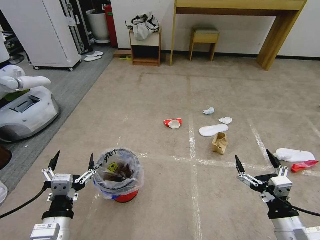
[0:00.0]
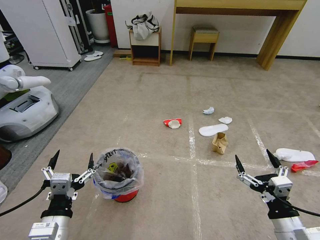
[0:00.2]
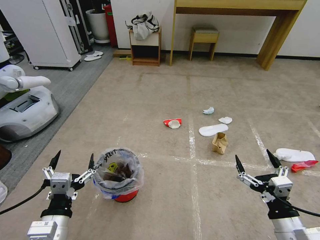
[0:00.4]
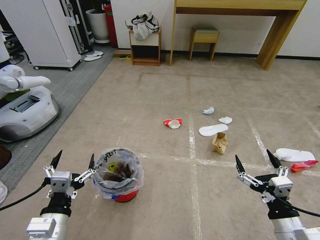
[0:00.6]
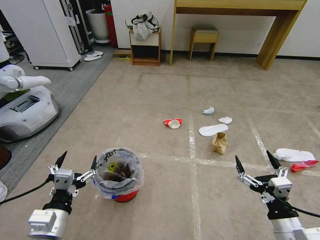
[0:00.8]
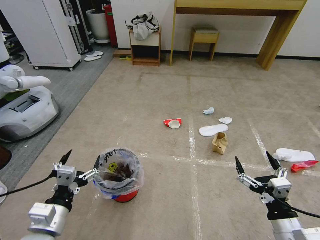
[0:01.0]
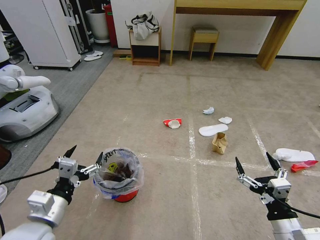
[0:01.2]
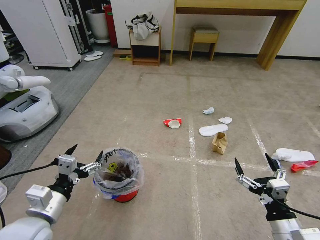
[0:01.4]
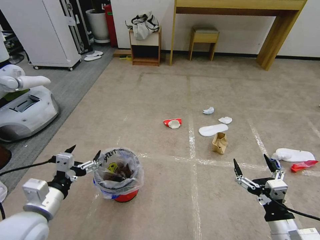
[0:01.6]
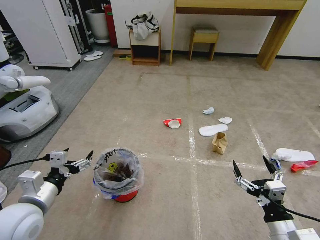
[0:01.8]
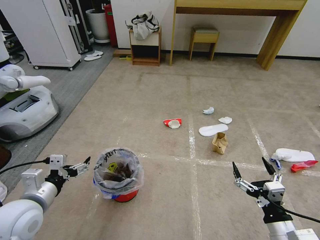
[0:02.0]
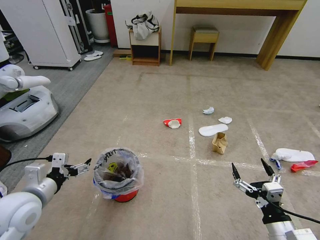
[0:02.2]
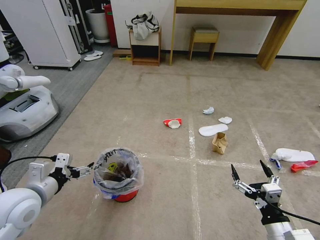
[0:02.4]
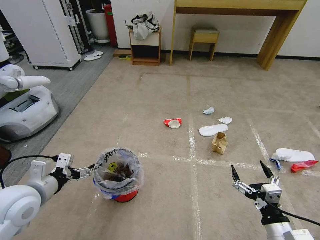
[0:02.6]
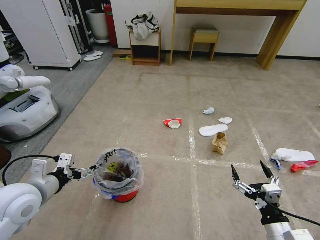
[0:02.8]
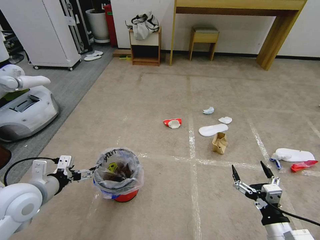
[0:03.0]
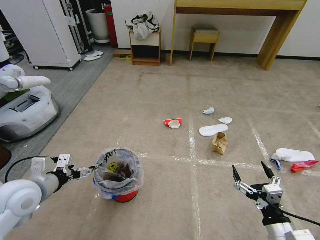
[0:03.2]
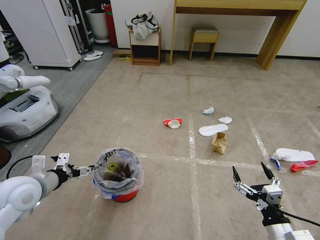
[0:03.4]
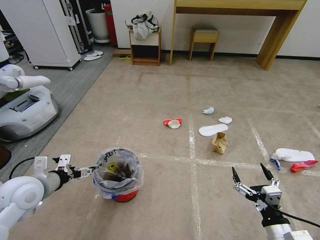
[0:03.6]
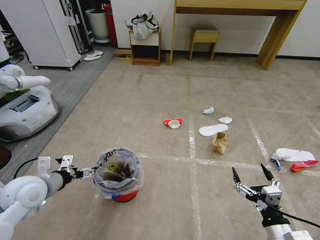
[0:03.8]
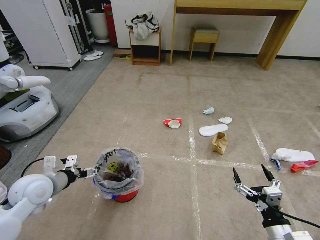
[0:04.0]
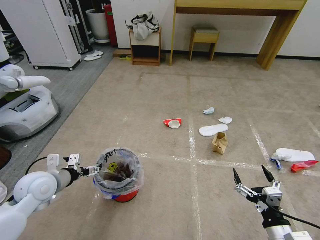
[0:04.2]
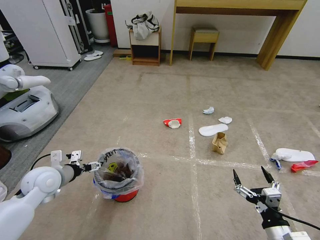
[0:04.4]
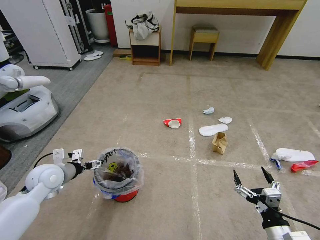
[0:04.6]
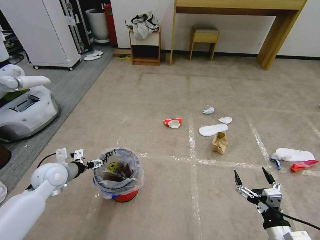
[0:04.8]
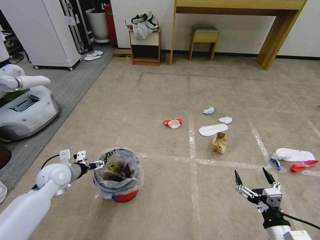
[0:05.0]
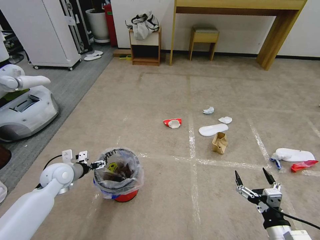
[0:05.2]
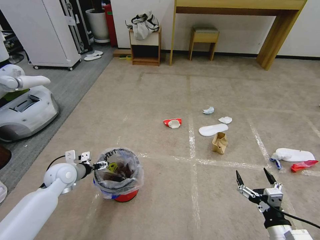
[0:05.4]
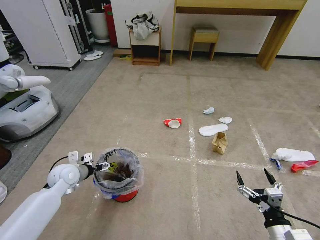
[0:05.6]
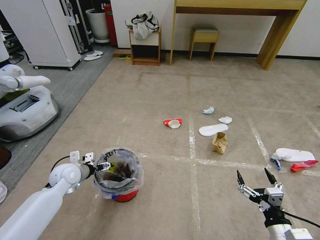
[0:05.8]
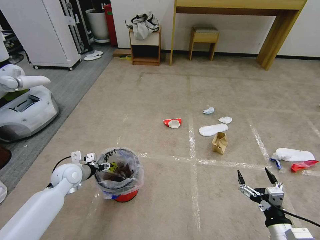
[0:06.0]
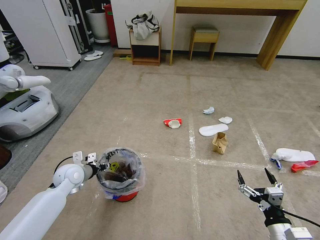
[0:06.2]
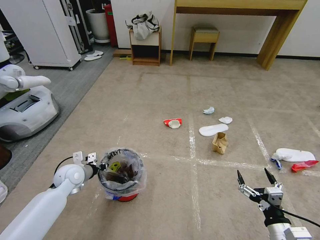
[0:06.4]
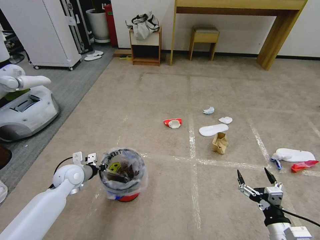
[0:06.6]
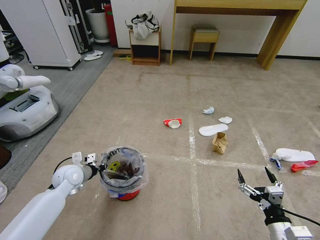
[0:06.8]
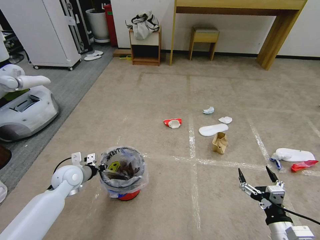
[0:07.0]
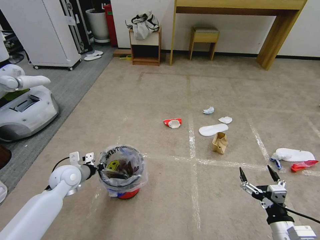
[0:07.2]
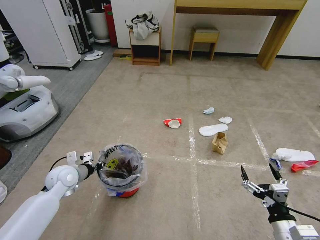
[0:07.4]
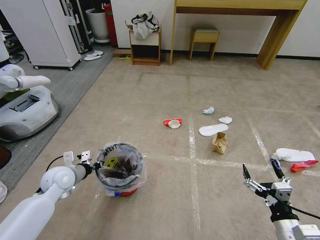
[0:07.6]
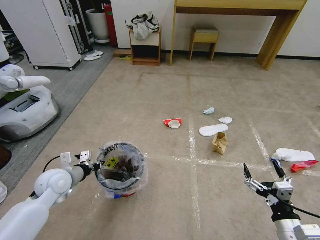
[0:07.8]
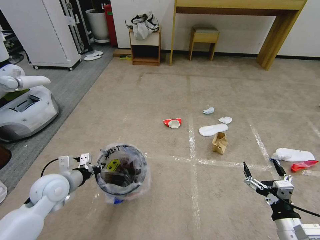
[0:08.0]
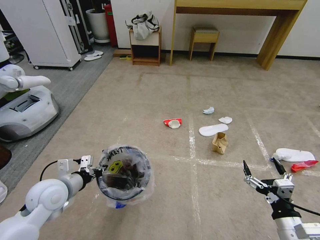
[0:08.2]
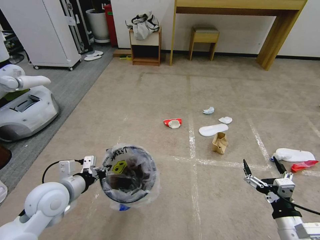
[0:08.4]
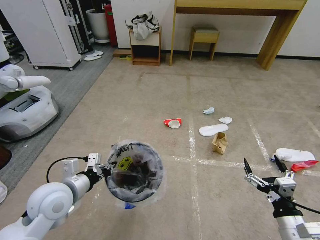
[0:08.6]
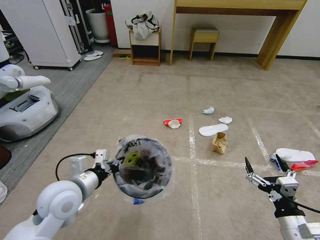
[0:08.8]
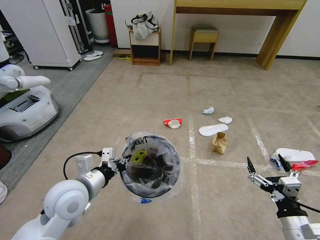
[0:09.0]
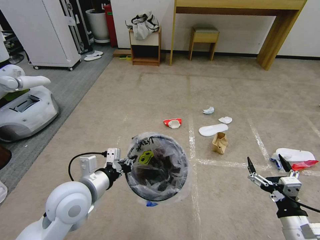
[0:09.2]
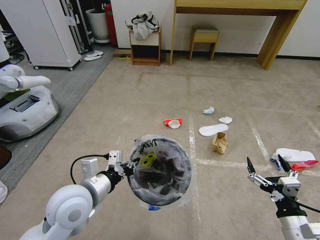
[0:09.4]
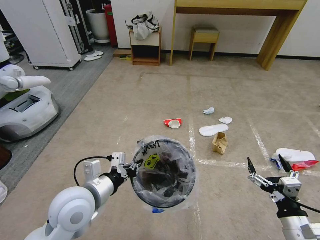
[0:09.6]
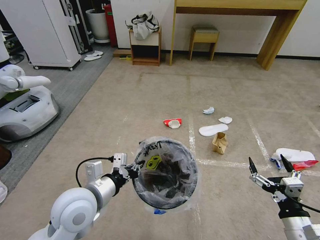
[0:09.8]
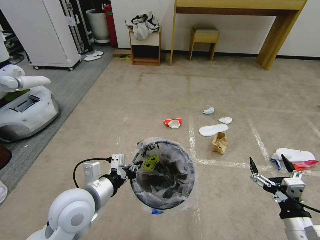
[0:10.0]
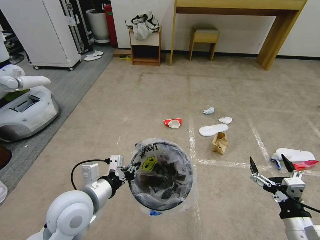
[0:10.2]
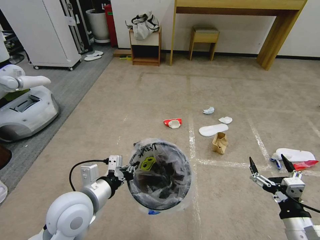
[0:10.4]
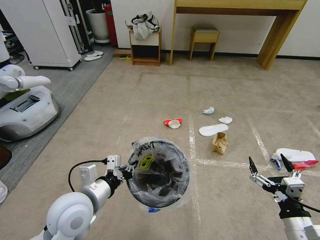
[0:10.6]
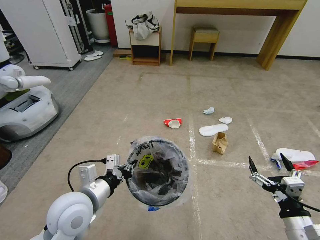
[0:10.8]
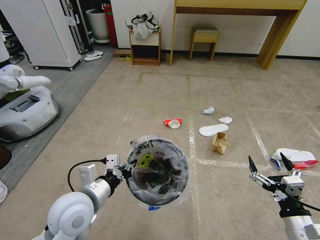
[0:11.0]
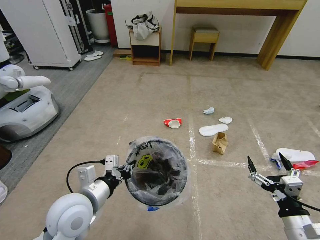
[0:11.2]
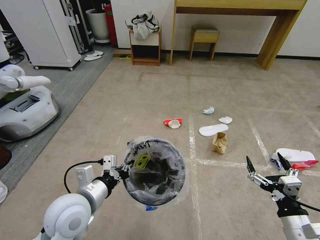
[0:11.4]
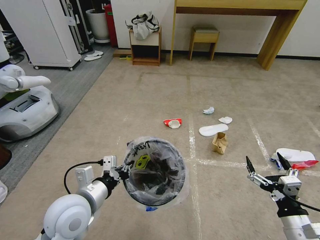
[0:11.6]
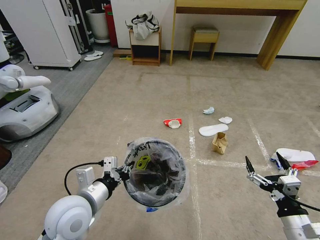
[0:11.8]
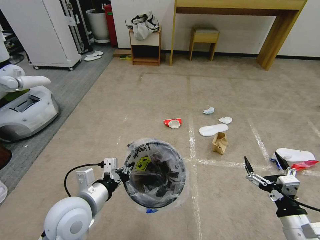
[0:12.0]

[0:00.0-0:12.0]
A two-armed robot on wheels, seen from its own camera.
Task of the whole recording: Pick up the trash bin and place the garbage on the floor into it.
0:01.6 to 0:03.0: The left gripper goes approximately 5 cm forward.
0:03.0 to 0:04.4: The left gripper heads forward, covering roughly 10 cm.
0:04.4 to 0:06.0: The left gripper moves downward and forward, some 10 cm, and closes up.
0:06.0 to 0:07.6: The left gripper closes up.
0:07.6 to 0:09.0: The left gripper goes approximately 15 cm to the right, backward and upward.
0:09.0 to 0:10.4: There are only small adjustments of the grippers.
0:10.4 to 0:12.0: Both grippers stay about where they are.

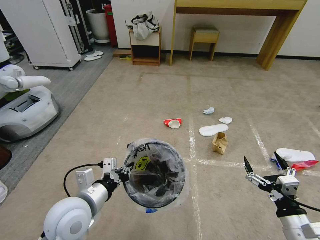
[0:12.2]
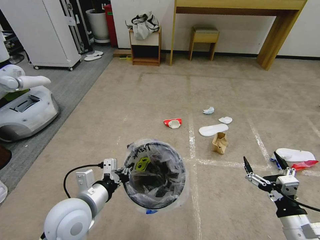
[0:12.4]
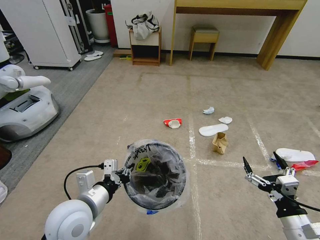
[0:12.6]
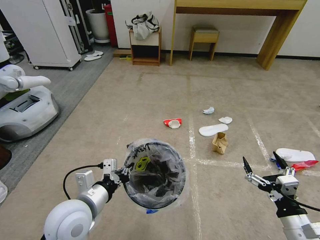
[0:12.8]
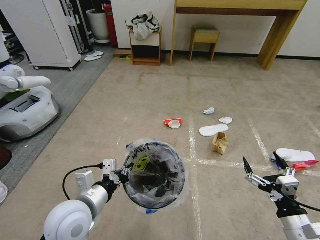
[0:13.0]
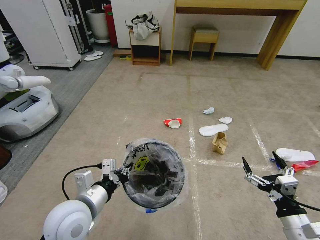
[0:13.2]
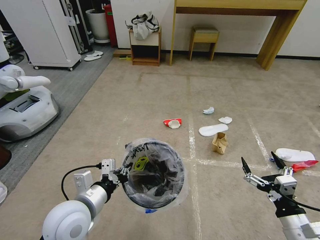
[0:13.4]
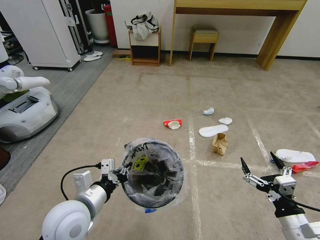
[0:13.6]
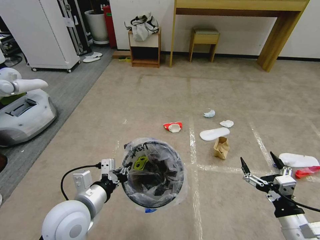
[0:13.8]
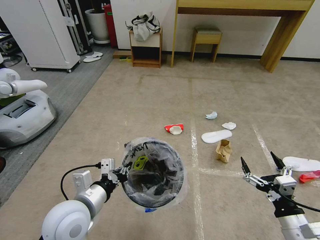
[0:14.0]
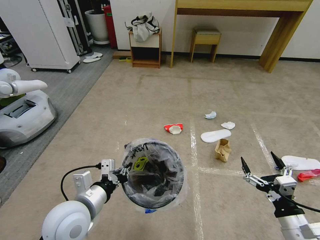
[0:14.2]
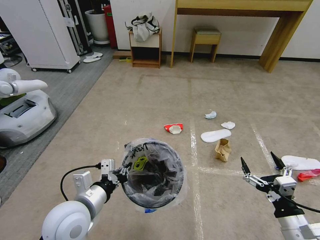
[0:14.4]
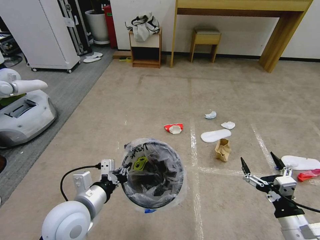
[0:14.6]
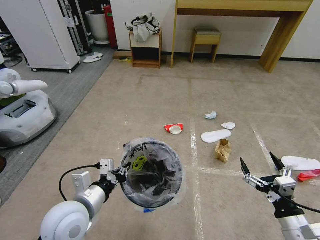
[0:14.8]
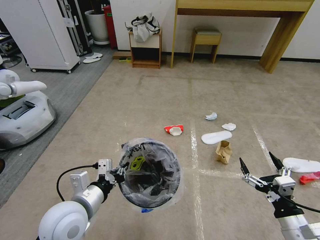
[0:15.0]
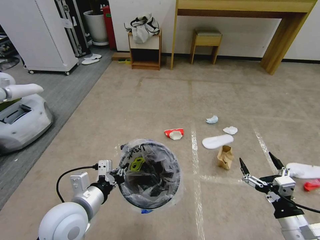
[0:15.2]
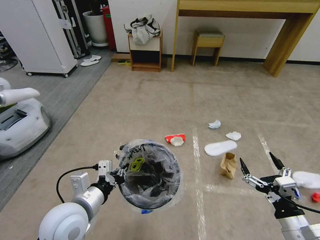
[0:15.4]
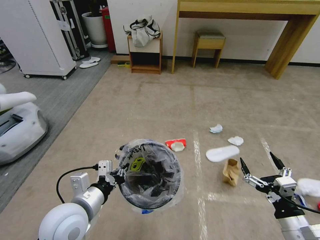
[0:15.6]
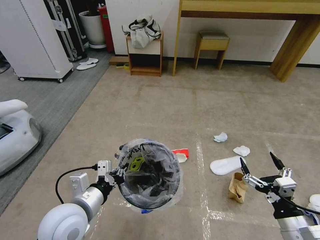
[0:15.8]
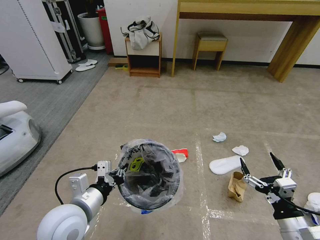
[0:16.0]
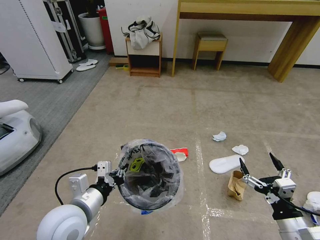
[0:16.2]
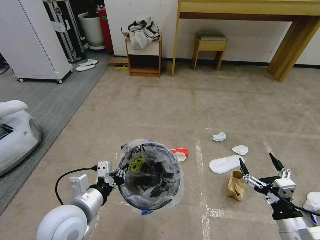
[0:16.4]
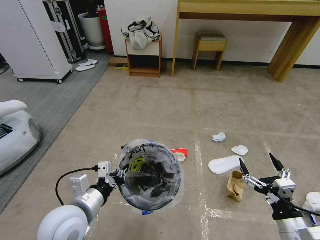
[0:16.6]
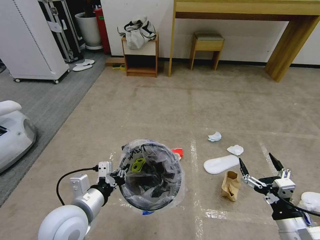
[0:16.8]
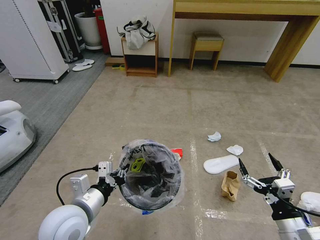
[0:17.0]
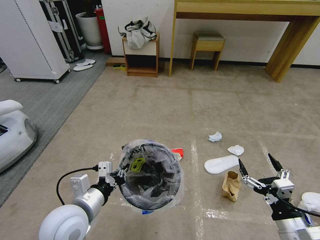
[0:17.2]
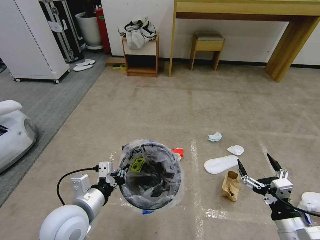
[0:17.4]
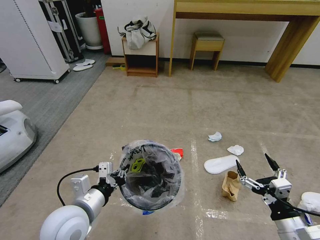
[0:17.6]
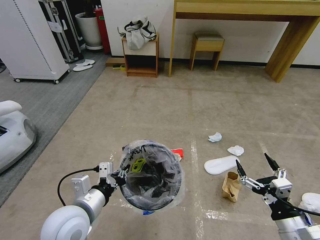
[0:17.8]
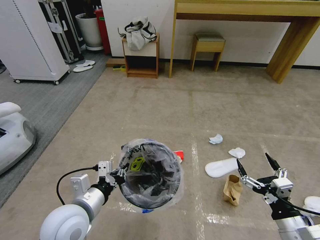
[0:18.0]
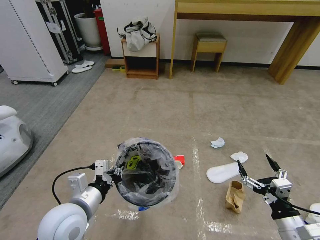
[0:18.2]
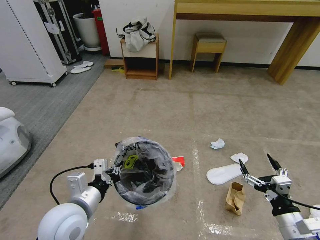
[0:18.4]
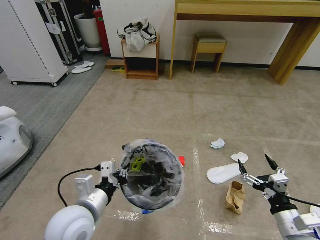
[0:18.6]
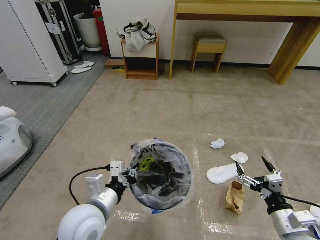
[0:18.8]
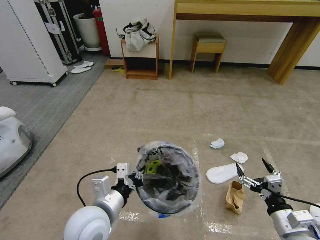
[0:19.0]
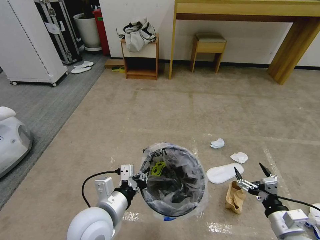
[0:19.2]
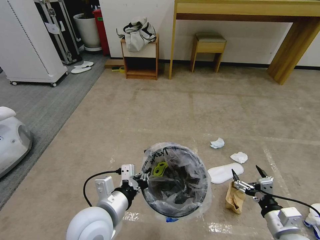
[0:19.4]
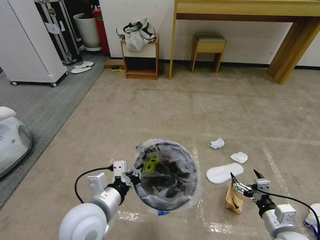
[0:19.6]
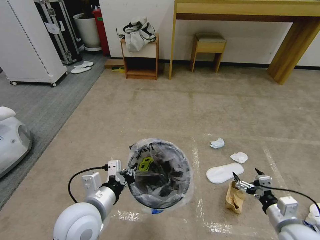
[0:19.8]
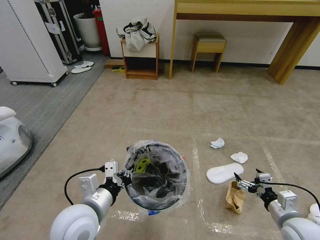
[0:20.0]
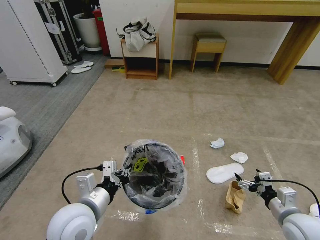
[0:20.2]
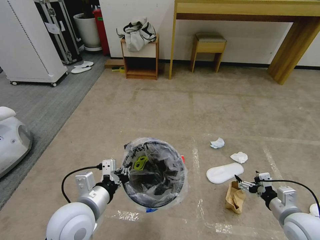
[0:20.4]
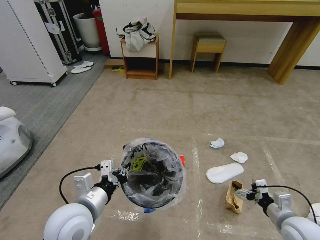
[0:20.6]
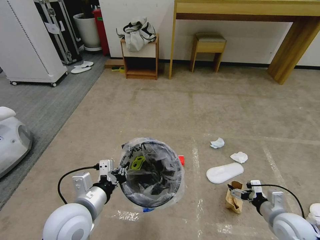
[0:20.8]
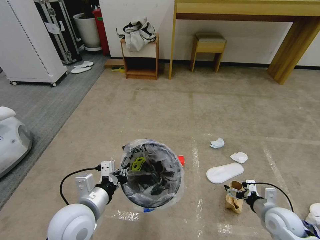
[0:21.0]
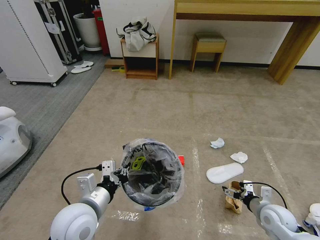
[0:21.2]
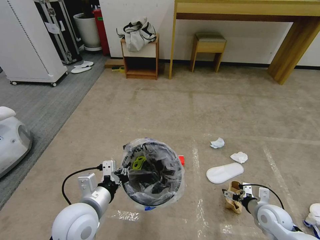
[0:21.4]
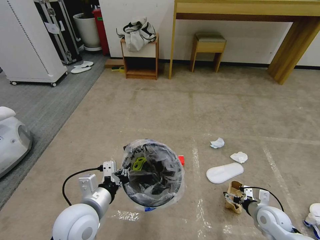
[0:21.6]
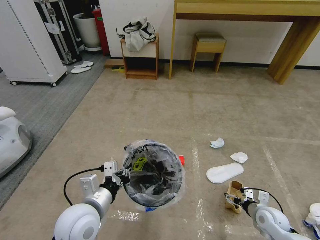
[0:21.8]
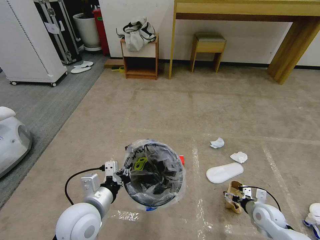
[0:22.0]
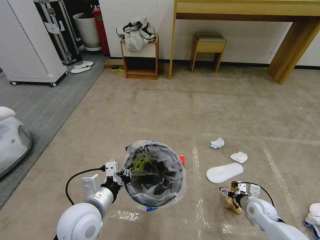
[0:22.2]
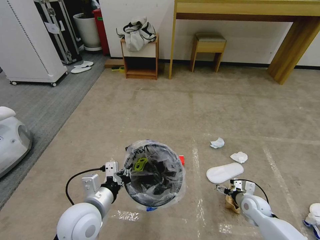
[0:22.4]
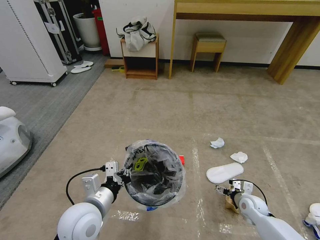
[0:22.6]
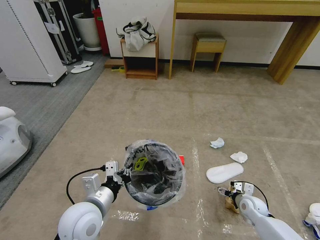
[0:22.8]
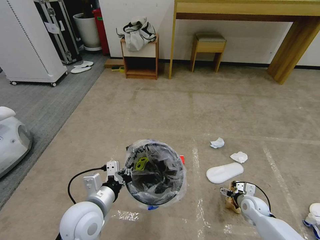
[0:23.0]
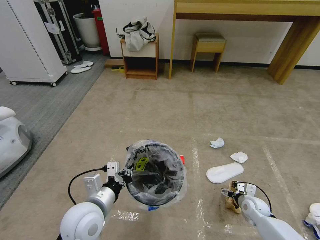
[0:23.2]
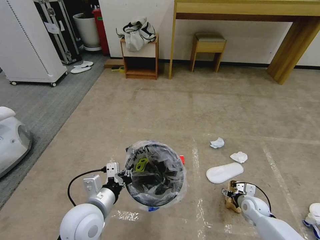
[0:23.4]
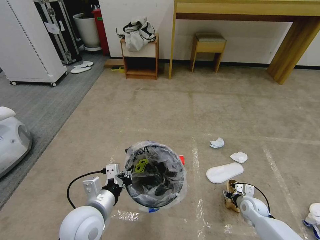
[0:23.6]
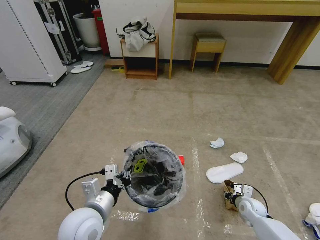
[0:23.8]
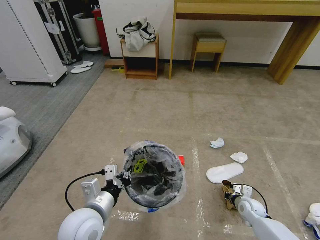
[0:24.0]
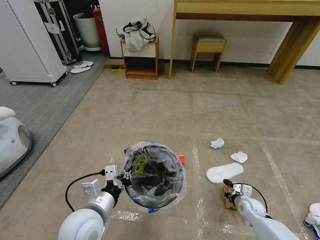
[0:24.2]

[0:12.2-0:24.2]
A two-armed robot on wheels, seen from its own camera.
Task of the whole recording: Pick up the trash bin and place the garbage on the floor into it.
0:12.2 to 0:15.2: The two grippers keep their place.
0:16.6 to 0:18.2: The grippers make only small movements.
0:18.2 to 0:19.8: The right gripper ends up about 5 cm from where it was.
0:19.8 to 0:21.2: The right gripper travels forward and downward by some 10 cm.
0:21.2 to 0:22.6: The right gripper travels downward and forward by some 10 cm.
0:22.6 to 0:24.2: The right gripper closes up.
